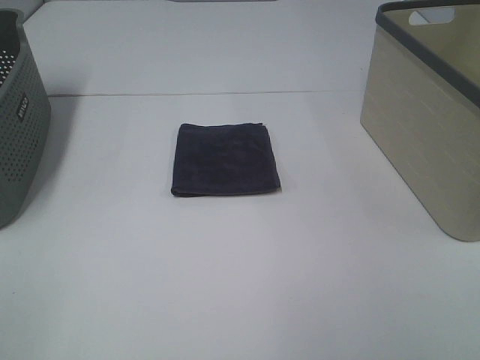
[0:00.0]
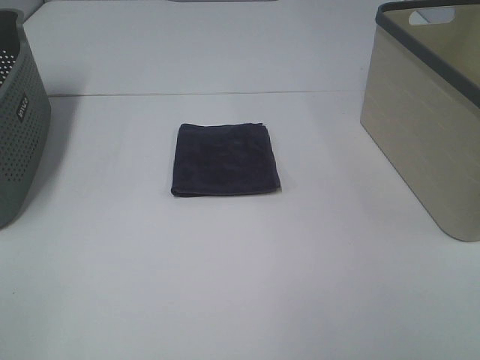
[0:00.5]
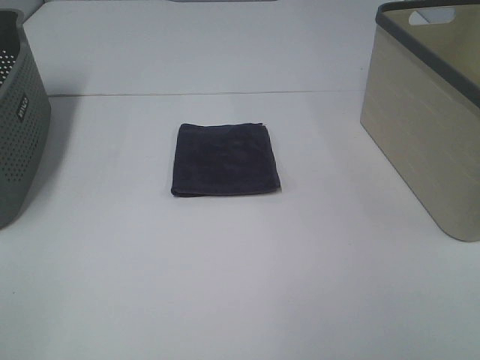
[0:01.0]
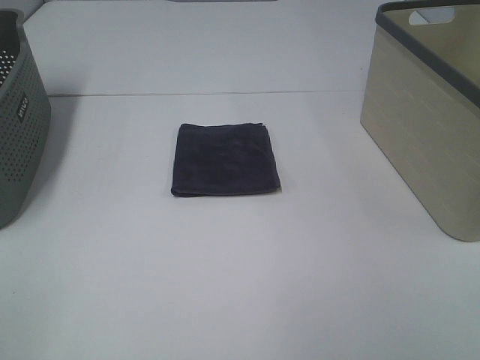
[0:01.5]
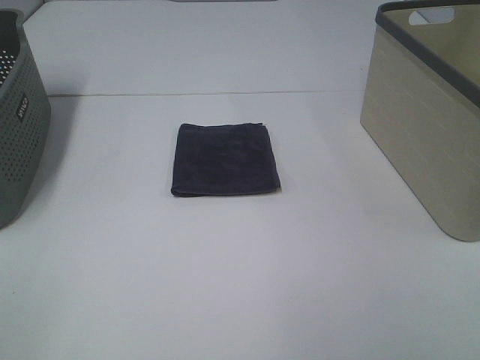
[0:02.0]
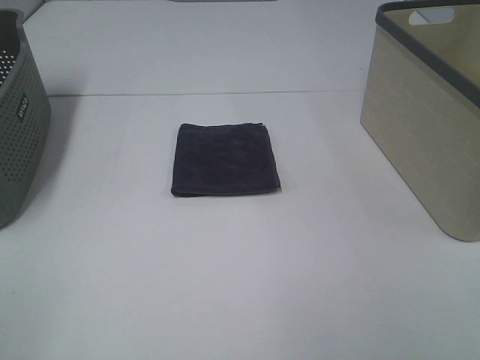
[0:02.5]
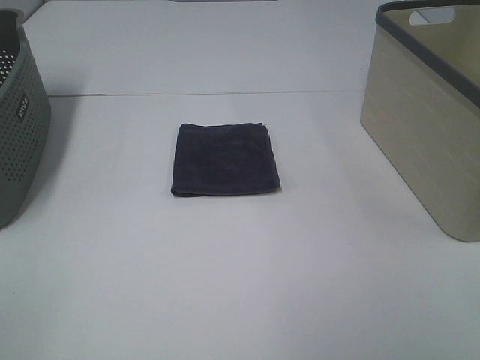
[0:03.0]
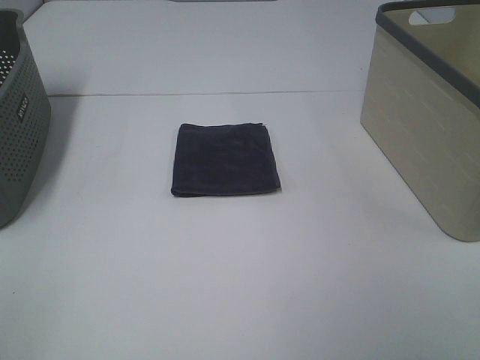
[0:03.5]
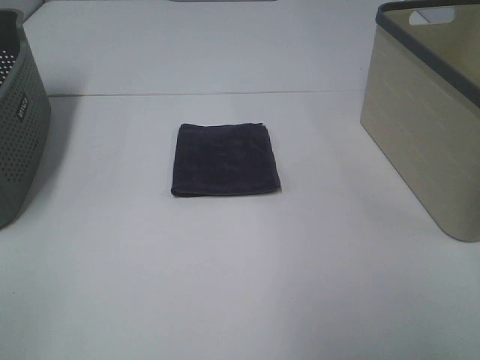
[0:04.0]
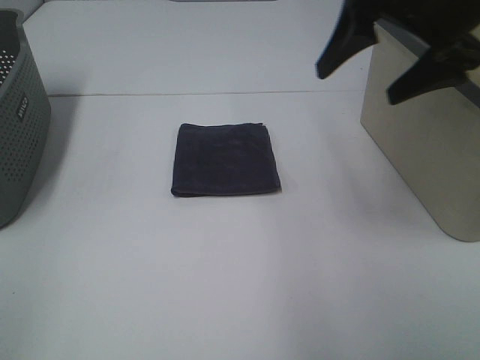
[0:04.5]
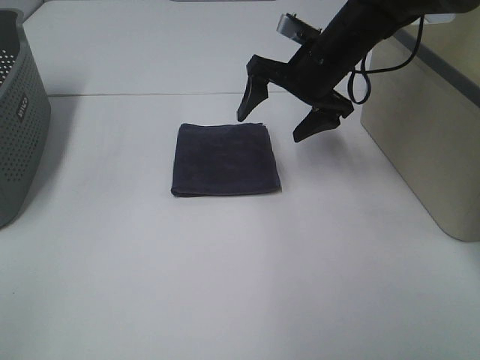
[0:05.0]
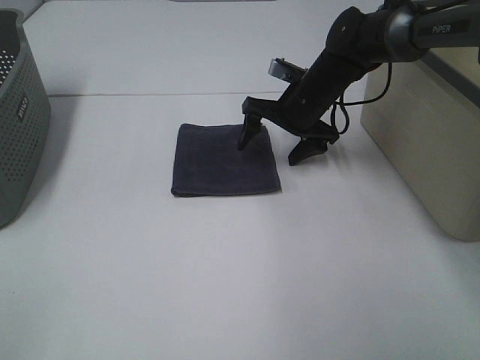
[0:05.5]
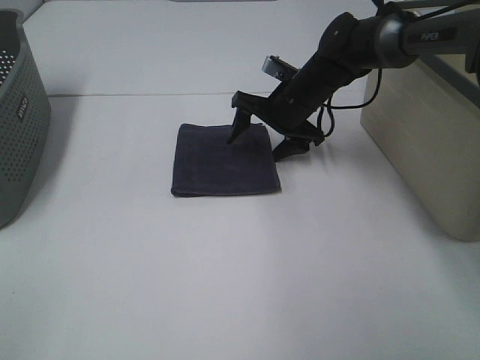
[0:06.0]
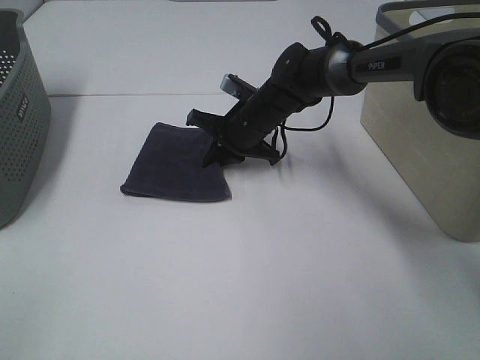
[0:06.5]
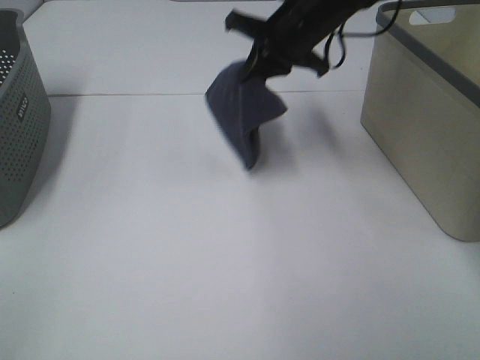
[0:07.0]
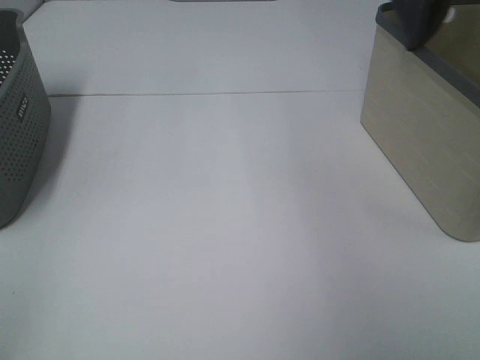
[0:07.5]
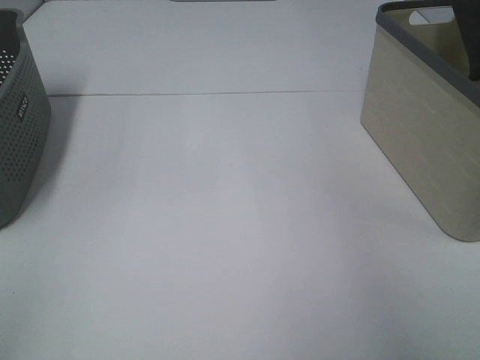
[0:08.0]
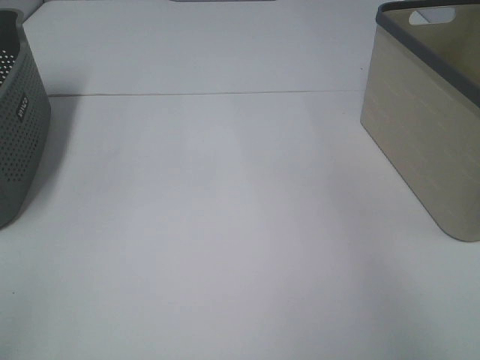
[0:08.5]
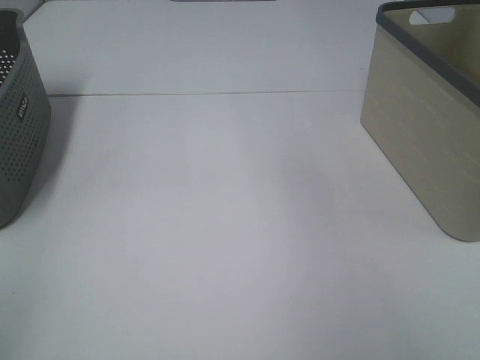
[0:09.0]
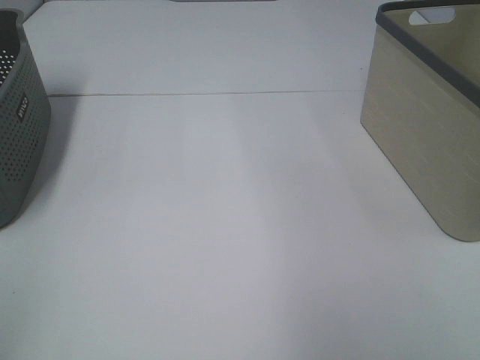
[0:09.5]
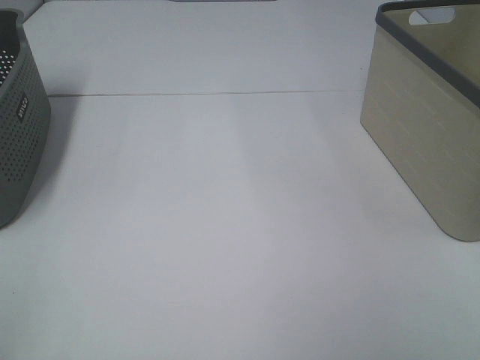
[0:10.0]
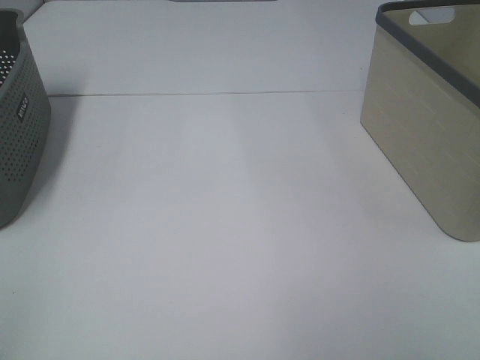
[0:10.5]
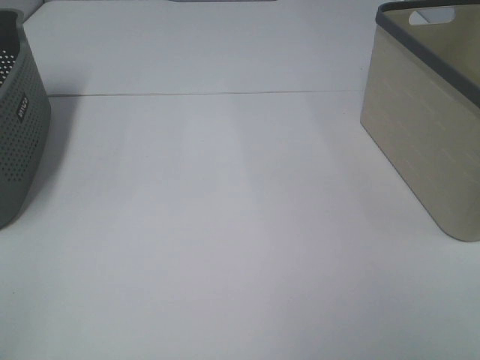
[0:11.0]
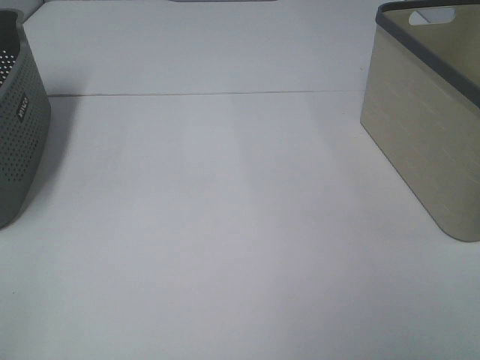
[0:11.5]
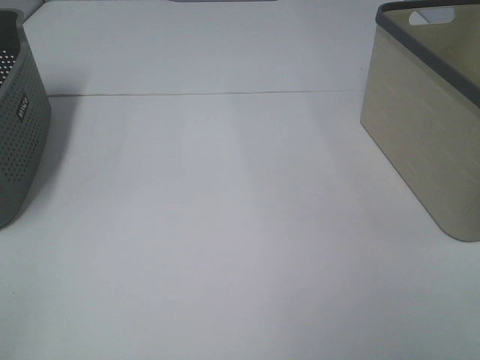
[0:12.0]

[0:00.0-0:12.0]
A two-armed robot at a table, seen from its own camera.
Step, 0:00.0 to 0:06.0: Right hand: grab the folded grey towel.
Step, 0:06.5 to 0:08.0: Right hand: place the grey towel in right basket.
0:00.0 to 0:02.0: Both grippers stay put.
0:04.0 to 0:06.0: The right gripper goes roughly 50 cm forward, downward and to the left.
0:06.0 to 0:08.0: The right gripper heads upward and to the right, covering some 40 cm, and closes its fingers.
0:08.0 to 0:10.0: The right gripper travels backward by approximately 35 cm, and opens.

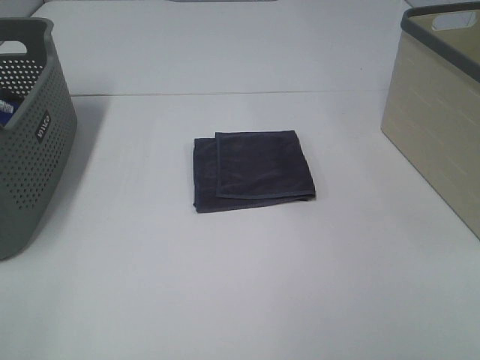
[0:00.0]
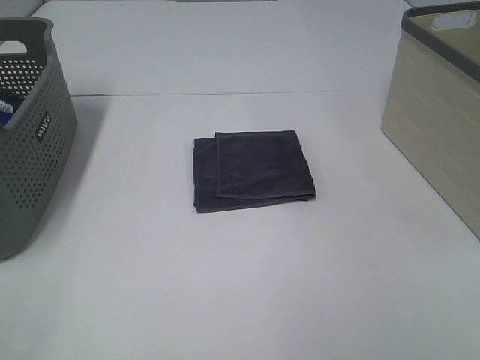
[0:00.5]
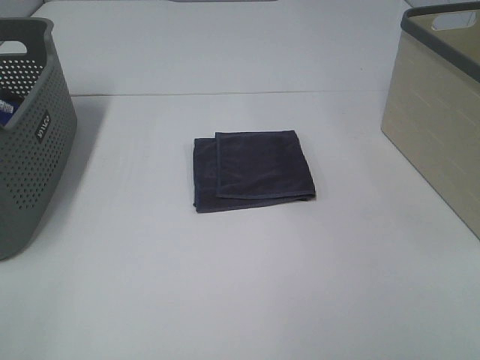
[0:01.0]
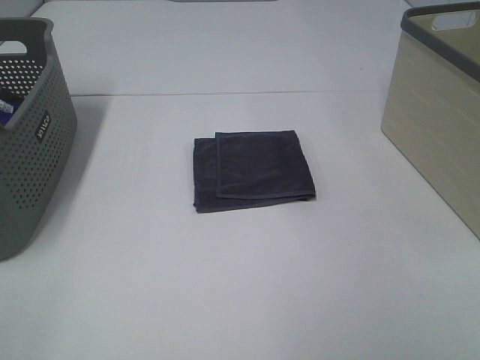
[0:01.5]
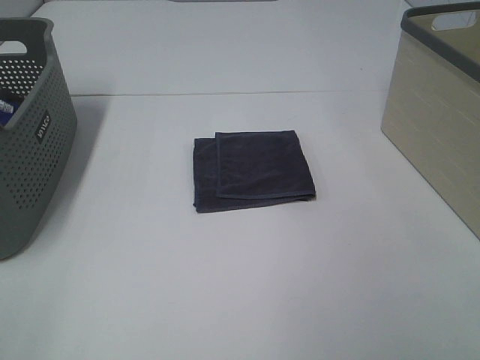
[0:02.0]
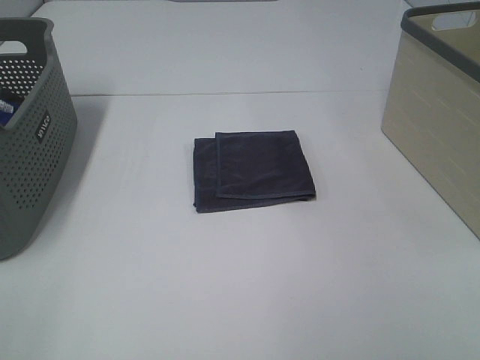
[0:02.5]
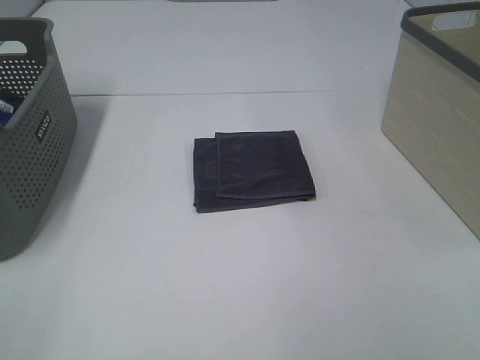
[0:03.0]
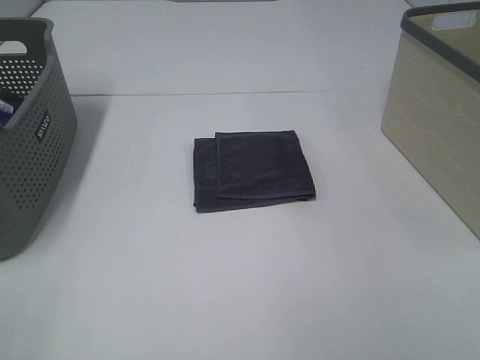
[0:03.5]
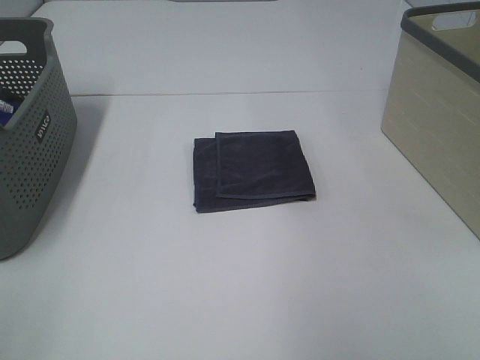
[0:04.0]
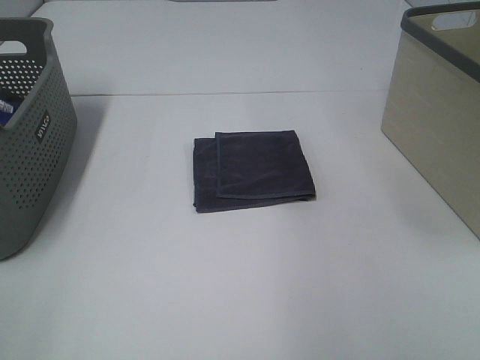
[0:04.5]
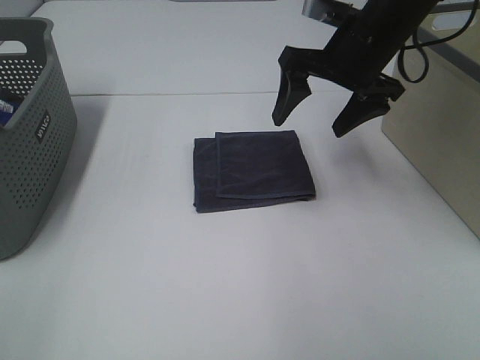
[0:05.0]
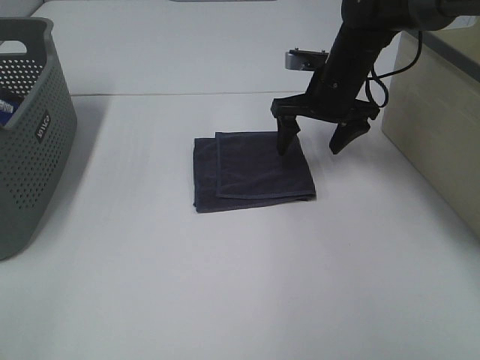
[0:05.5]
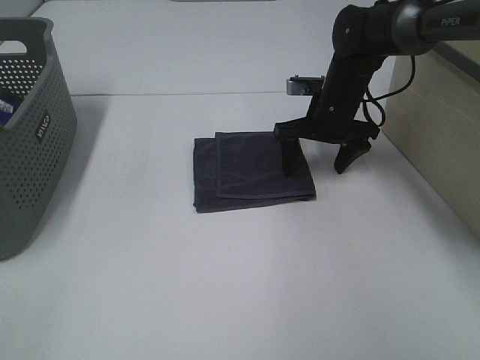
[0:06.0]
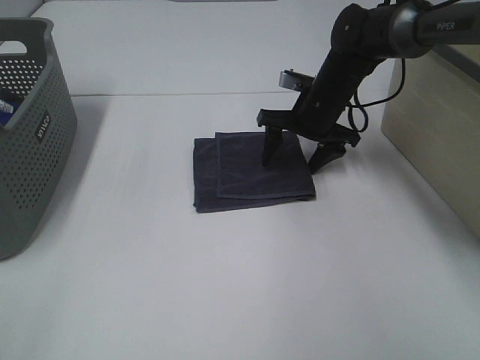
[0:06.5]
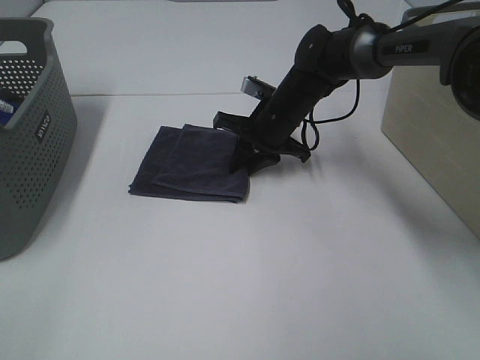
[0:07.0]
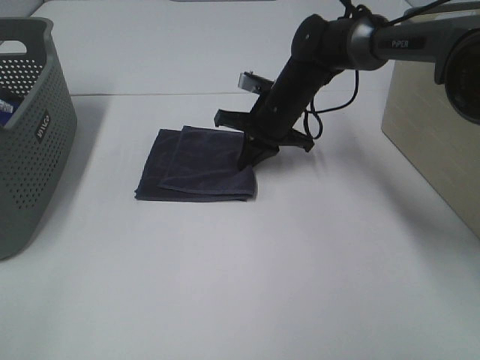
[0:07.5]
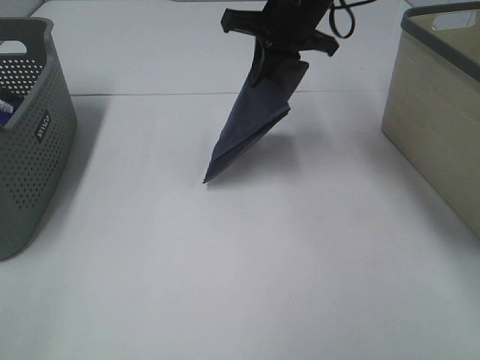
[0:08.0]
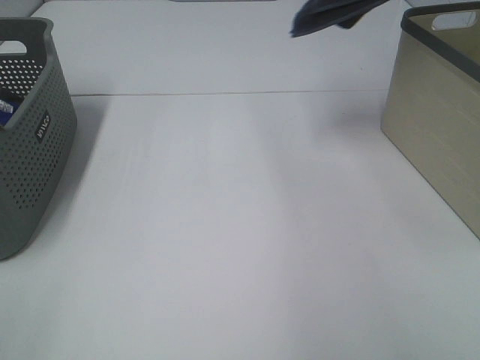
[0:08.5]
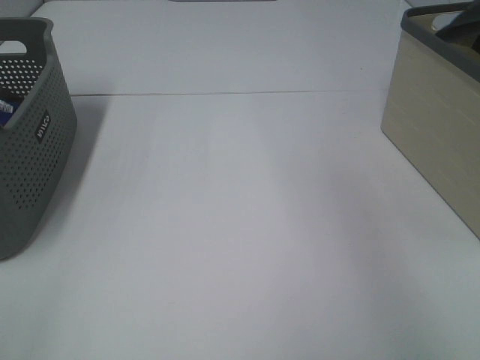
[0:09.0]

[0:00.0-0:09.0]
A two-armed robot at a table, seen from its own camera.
Step, 0:00.0 to 0:07.0: Right hand: grab the folded grey towel.
0:00.0 to 0:02.0: Both grippers stay about where they are.
0:04.5 to 0:07.0: The right gripper shifts approximately 35 cm downward, to the left and forward, and closes.
0:07.0 to 0:09.0: The right gripper goes roughly 40 cm upward and to the right.

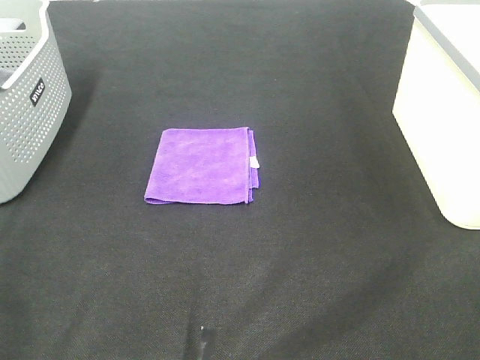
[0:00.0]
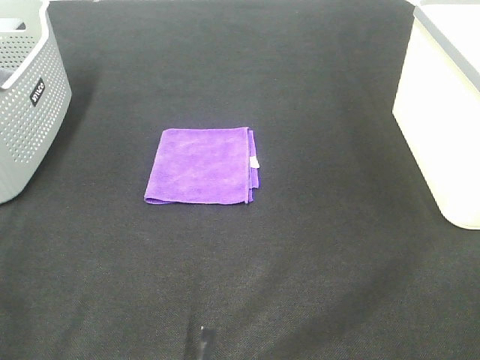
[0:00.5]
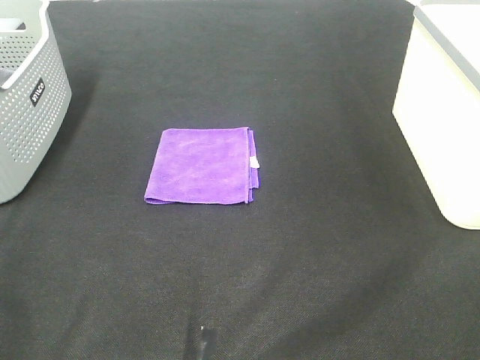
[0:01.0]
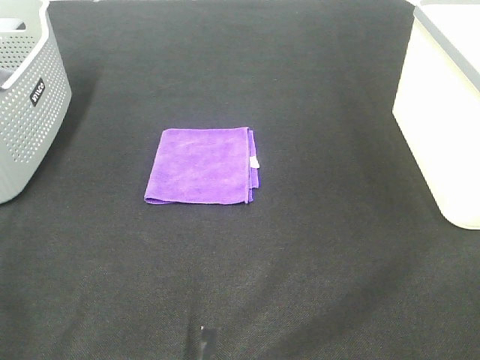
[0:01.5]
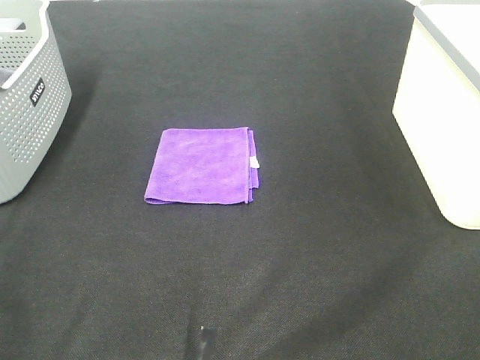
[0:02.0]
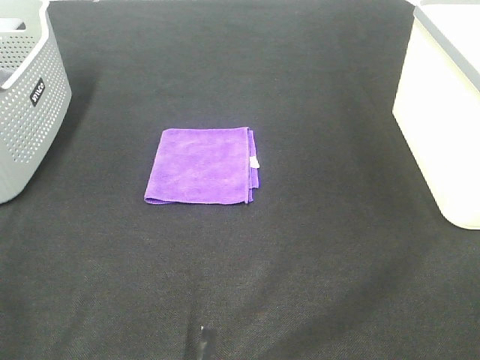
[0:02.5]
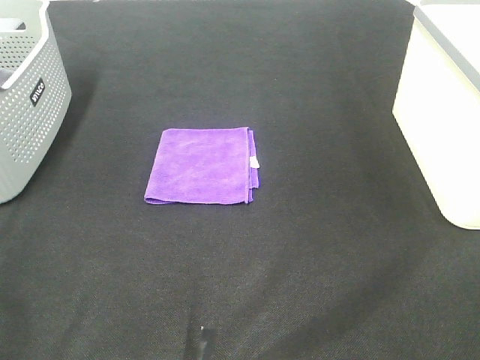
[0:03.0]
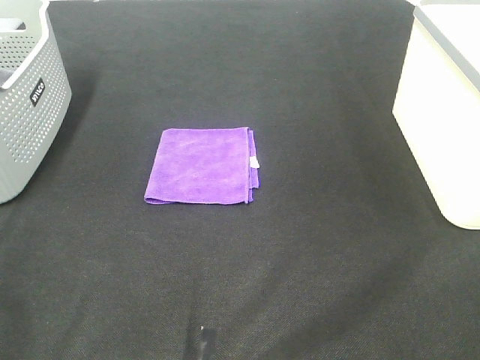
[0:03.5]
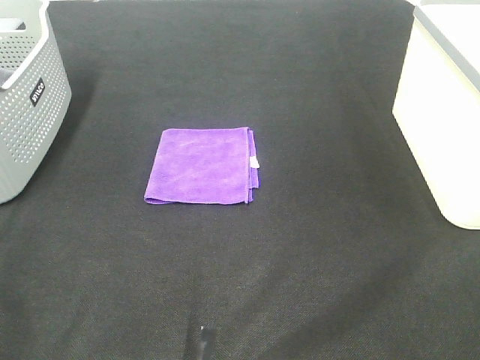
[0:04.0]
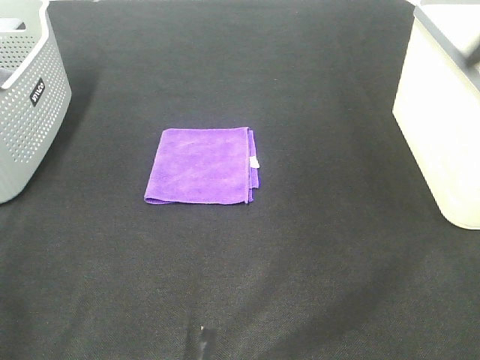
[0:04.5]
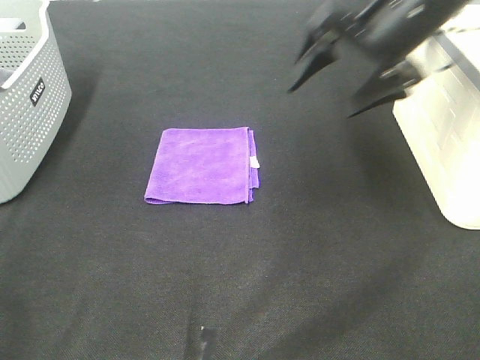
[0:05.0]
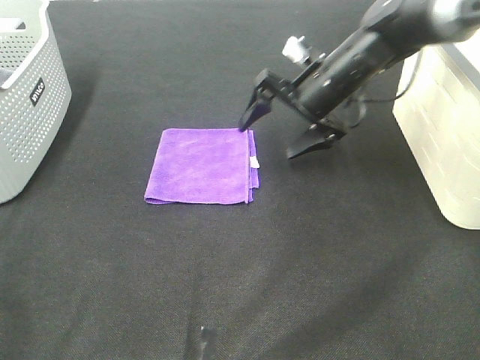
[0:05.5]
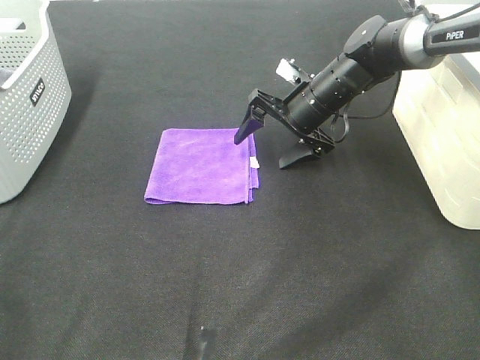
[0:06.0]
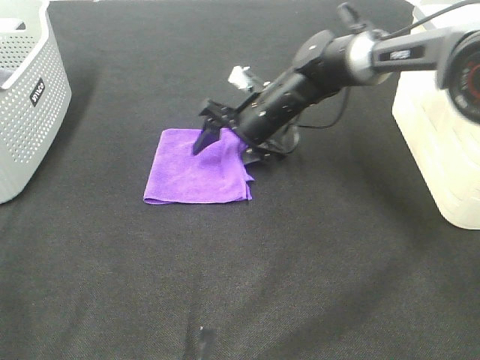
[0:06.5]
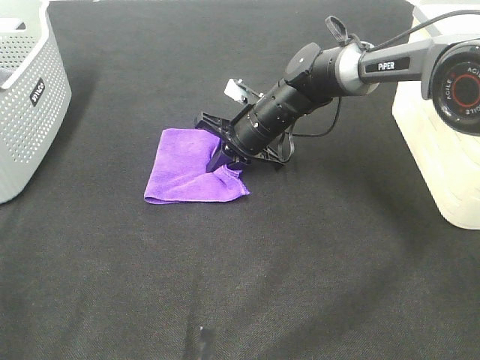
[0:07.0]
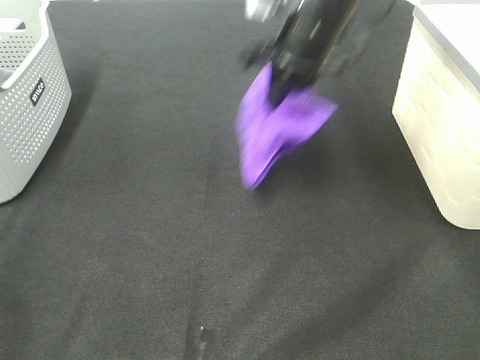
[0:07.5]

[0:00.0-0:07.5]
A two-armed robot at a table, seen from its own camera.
Step, 0:00.0 to 0:06.5: Right hand: grab the folded purple towel.
0:00.0 to 0:02.0: Both grippers stay put.
0:04.0 to 0:05.5: The right gripper heads forward, covering roughly 40 cm.
0:05.5 to 0:07.5: The right gripper moves upward, approximately 10 cm, and closes.
